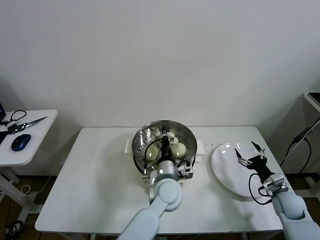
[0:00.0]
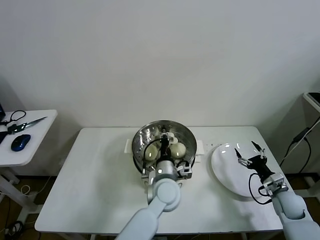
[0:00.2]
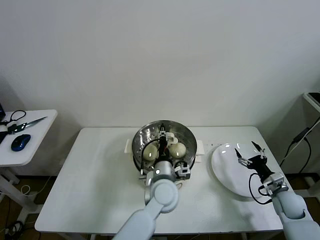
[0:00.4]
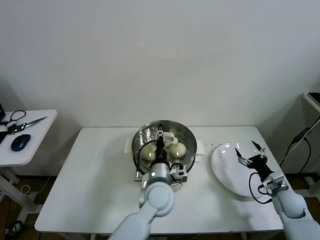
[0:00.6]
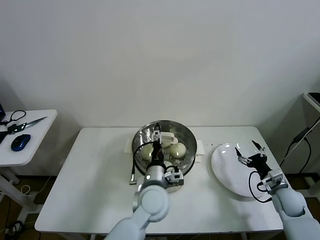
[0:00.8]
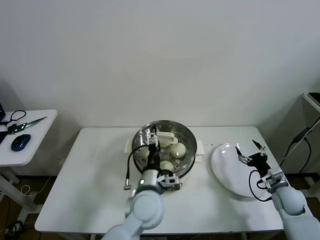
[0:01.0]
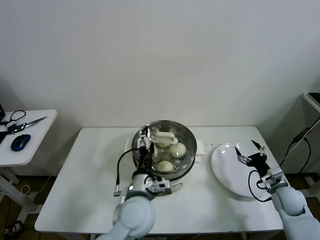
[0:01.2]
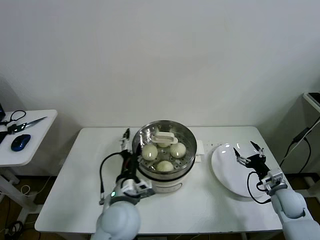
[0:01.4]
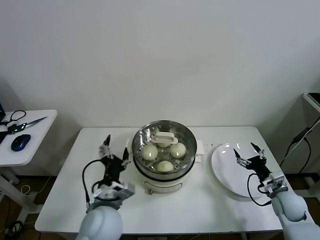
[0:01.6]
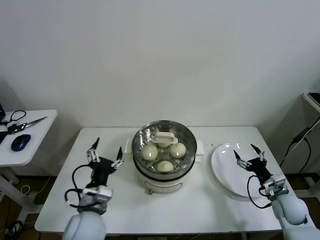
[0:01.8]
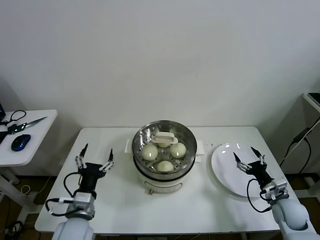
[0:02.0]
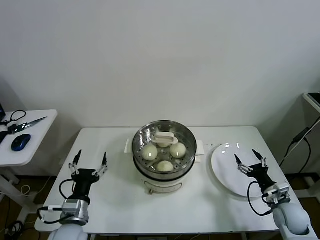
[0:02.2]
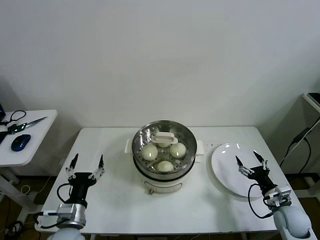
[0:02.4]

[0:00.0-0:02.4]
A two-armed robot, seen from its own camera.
Task of the whole recording: take steamed baozi put them in steamer then cover it.
0:00.0 to 0:01.2: The left gripper goes some 10 cm to the left and backward, and opens its fingers.
0:01.2 to 0:02.4: The right gripper shifts approximately 5 cm backward. Meanwhile the left gripper moves to the left, approximately 20 cm.

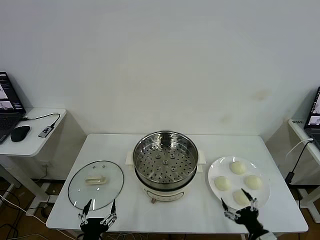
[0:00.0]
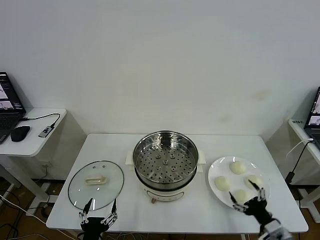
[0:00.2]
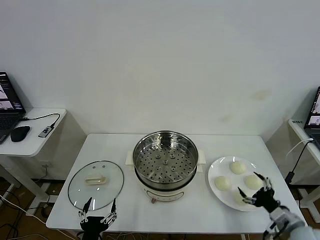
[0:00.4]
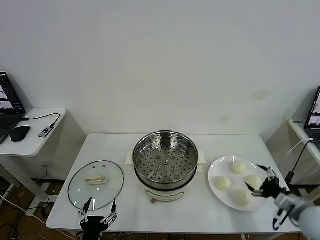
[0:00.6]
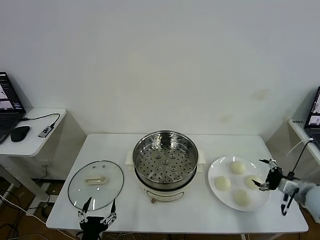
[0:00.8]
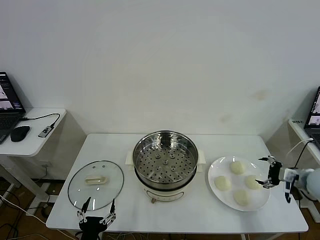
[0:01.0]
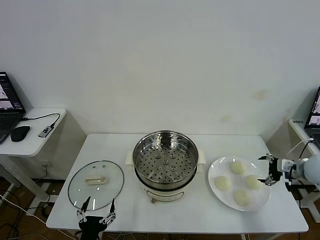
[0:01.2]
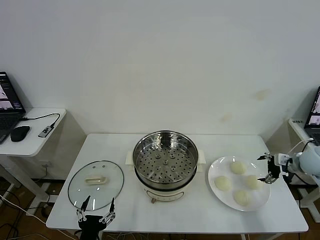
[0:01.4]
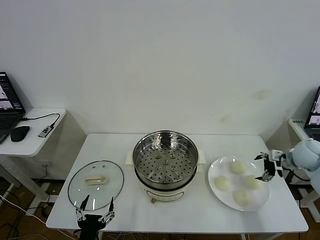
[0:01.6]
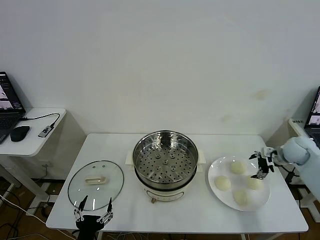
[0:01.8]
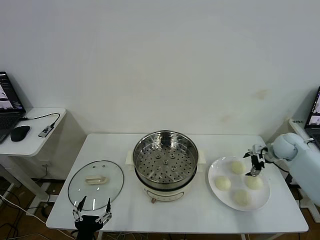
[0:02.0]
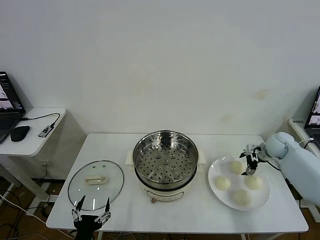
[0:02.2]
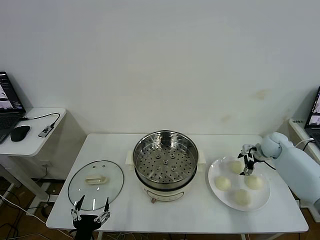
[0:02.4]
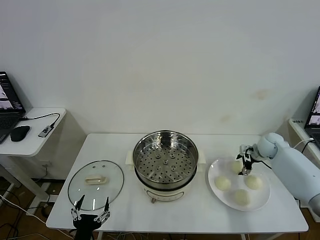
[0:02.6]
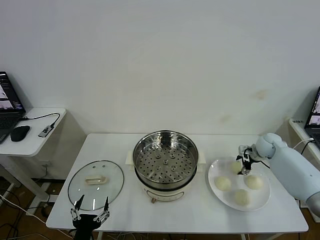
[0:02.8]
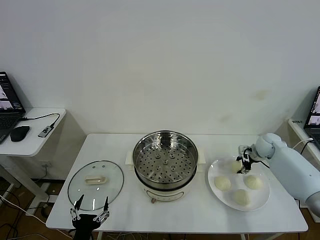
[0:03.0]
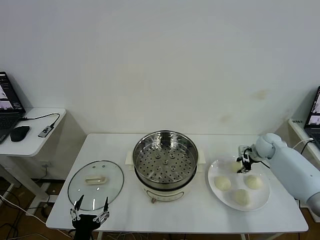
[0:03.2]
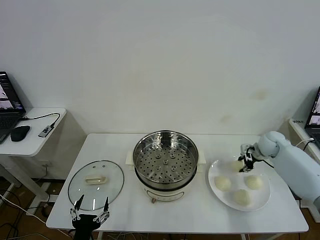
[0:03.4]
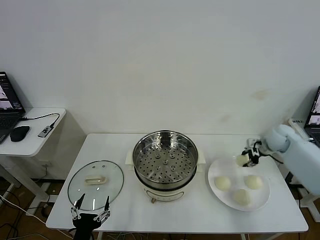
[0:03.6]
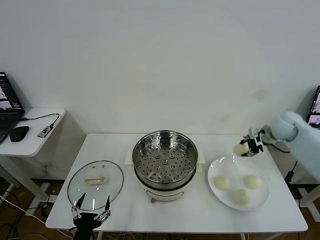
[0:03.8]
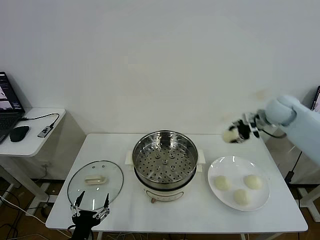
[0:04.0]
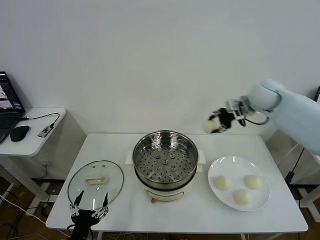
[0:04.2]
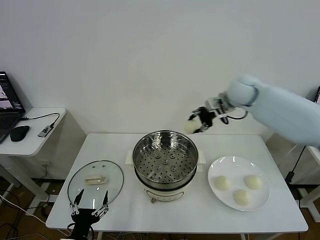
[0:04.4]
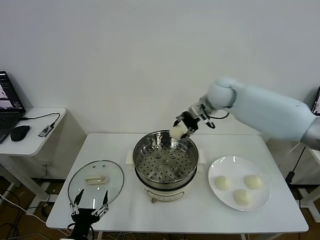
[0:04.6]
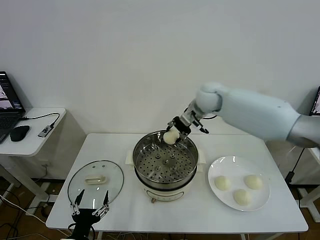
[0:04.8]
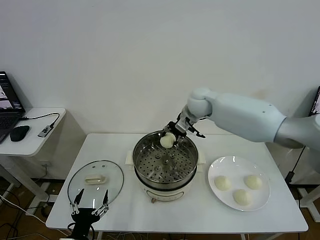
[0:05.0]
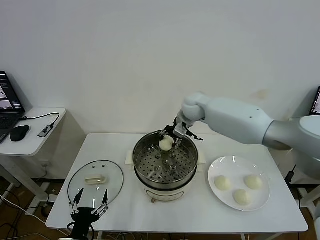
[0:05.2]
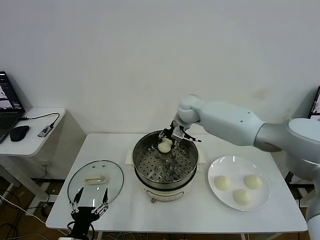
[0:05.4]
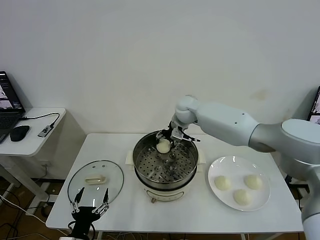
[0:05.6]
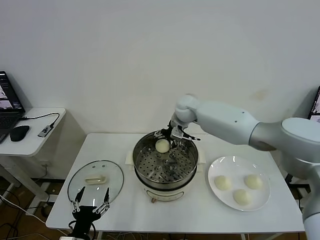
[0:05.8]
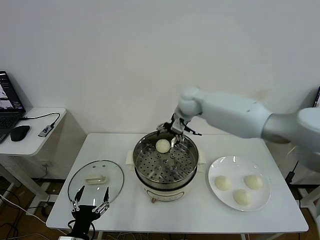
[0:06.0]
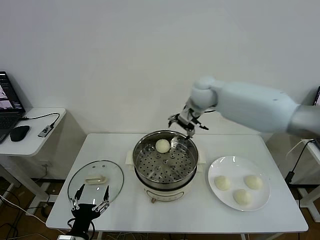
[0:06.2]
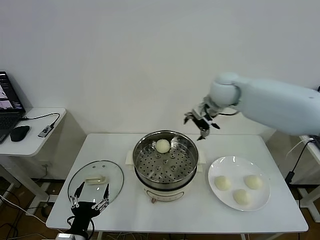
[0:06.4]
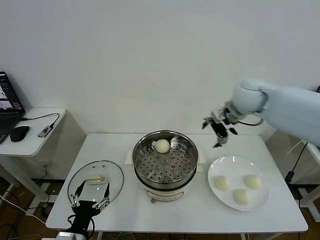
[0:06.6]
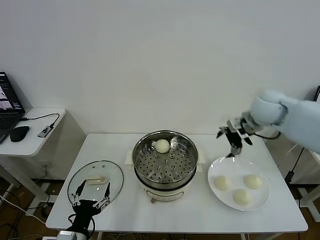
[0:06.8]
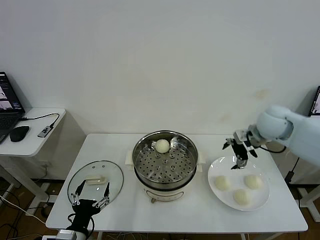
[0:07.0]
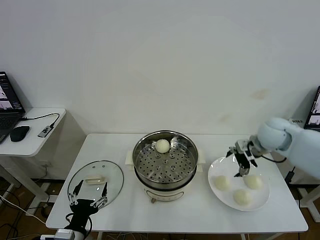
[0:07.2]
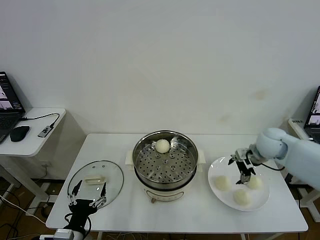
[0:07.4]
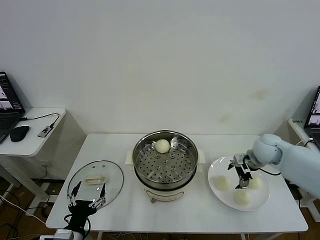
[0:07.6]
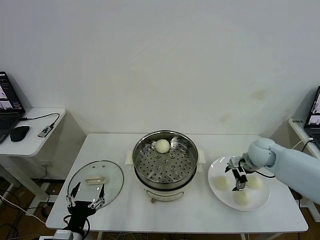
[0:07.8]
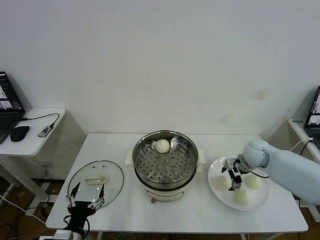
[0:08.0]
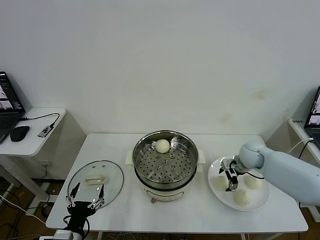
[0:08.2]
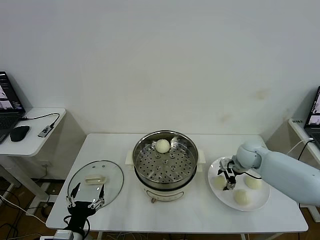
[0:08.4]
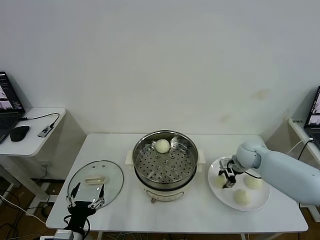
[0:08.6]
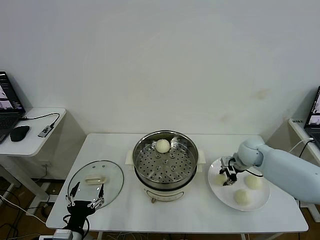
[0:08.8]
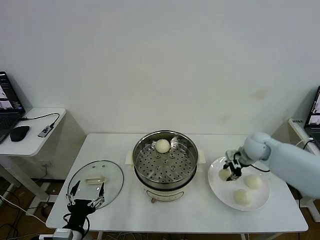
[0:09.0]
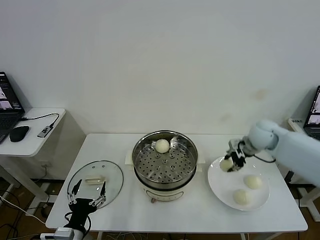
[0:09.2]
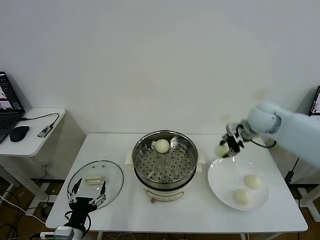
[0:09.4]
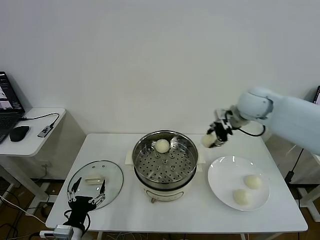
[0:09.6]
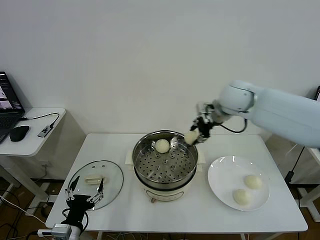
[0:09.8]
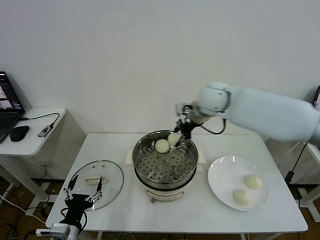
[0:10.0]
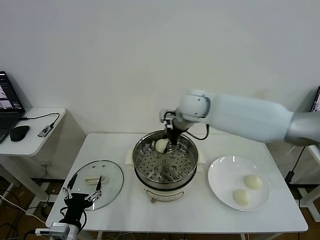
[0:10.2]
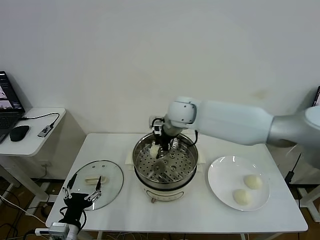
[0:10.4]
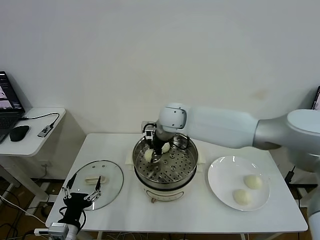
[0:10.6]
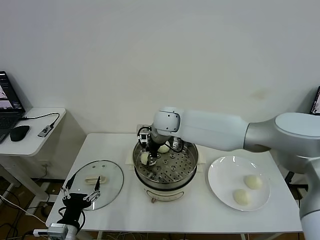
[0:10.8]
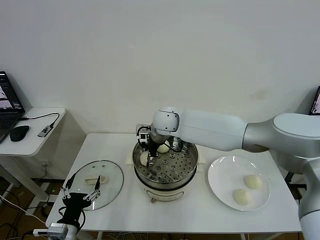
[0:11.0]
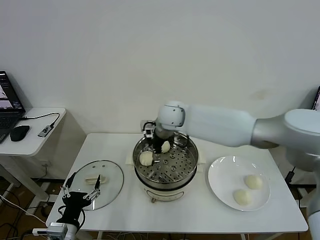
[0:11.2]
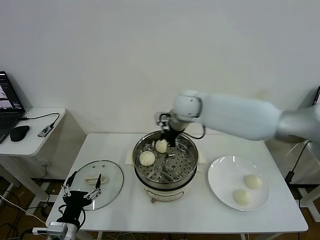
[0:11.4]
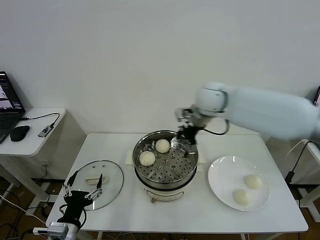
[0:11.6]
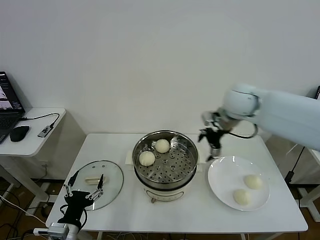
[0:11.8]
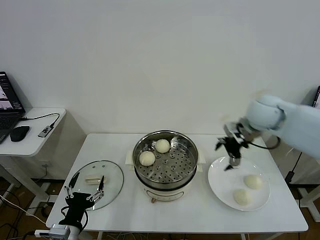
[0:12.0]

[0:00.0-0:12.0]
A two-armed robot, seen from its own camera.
Task of the whole recording: take steamed baozi put them in steamer then cover it.
Step, 0:00.0 to 0:02.8: Grasp the baozi in the plate with right gripper.
Step, 0:03.0 to 0:05.8: Place the baozi on the steamer with right gripper.
Step, 0:06.0 to 0:08.4: Grasp the baozi in the plate with right gripper.
Step, 0:08.6 to 0:11.0: Place the baozi on the steamer with right gripper.
0:01.6 to 0:03.0: The right gripper is displaced forward, downward and to the left by some 10 cm, and closes its fingers.
0:03.0 to 0:04.4: The right gripper shifts about 30 cm upward and to the left.
0:04.4 to 0:06.0: The right gripper heads to the left, covering roughly 10 cm, and opens up.
0:06.0 to 0:07.6: The right gripper goes some 30 cm to the right, downward and backward.
0:07.6 to 0:09.0: The right gripper closes its fingers.
0:09.0 to 0:10.4: The right gripper travels to the left by some 30 cm.
0:10.4 to 0:12.0: The right gripper is displaced to the right by about 25 cm, and opens.

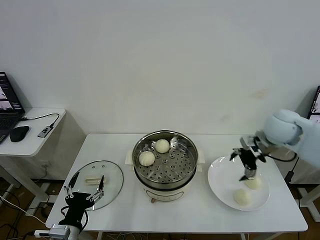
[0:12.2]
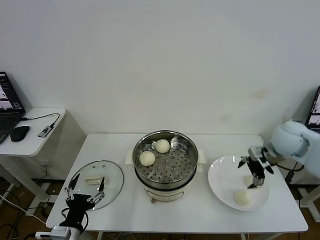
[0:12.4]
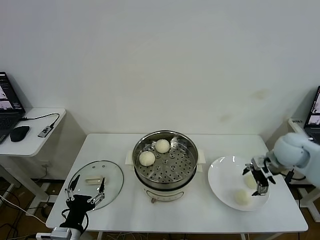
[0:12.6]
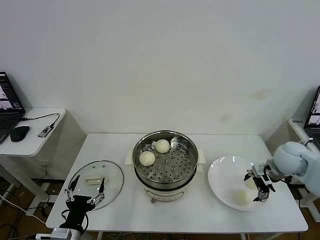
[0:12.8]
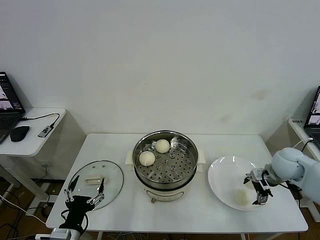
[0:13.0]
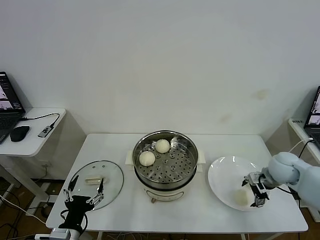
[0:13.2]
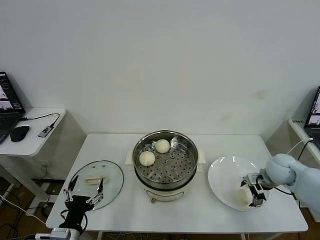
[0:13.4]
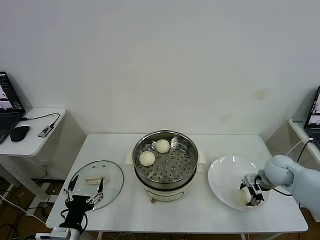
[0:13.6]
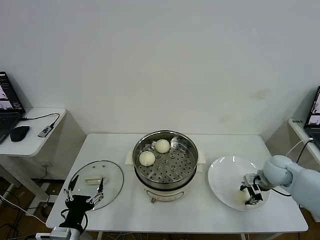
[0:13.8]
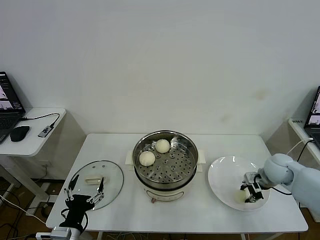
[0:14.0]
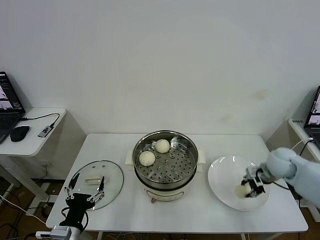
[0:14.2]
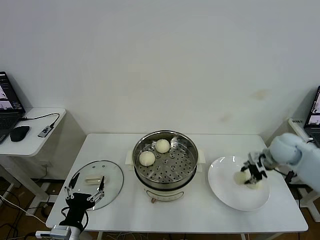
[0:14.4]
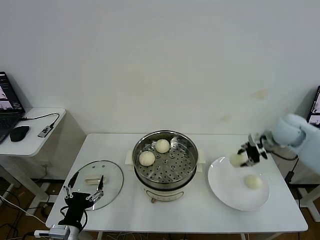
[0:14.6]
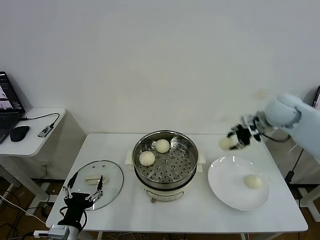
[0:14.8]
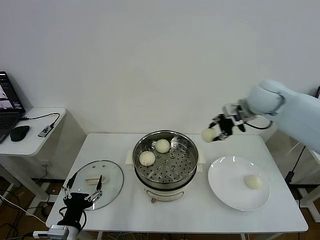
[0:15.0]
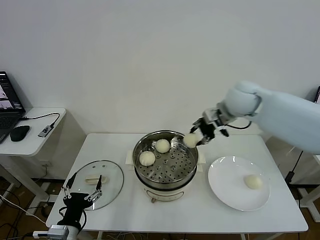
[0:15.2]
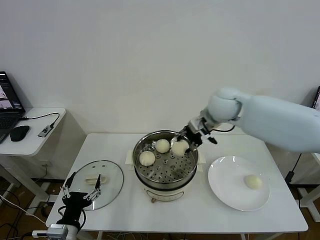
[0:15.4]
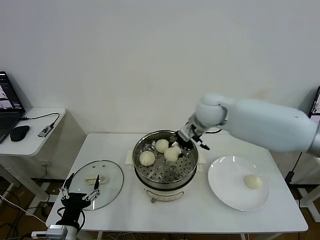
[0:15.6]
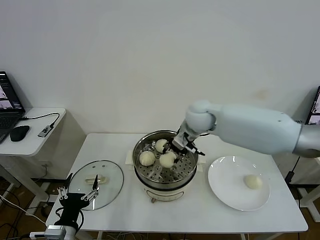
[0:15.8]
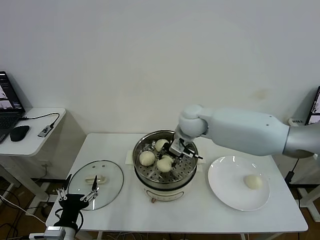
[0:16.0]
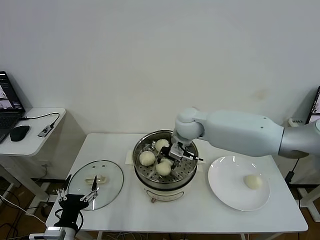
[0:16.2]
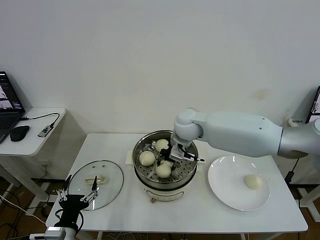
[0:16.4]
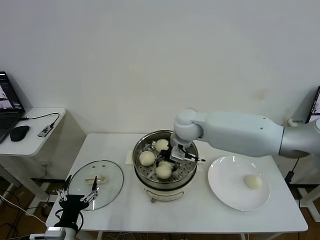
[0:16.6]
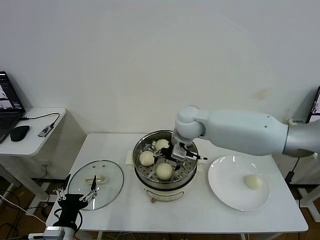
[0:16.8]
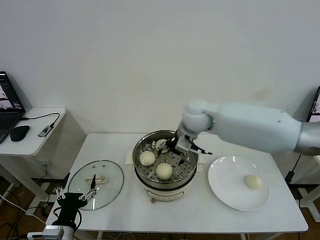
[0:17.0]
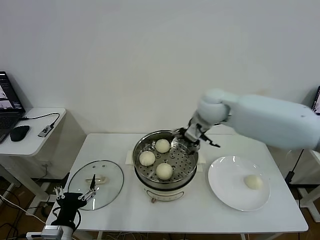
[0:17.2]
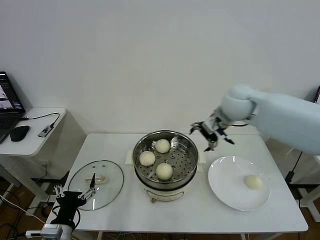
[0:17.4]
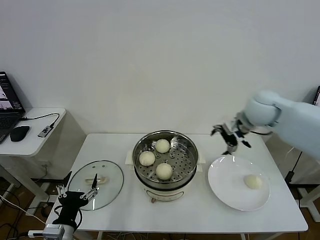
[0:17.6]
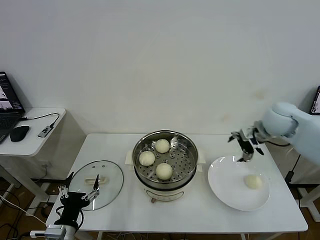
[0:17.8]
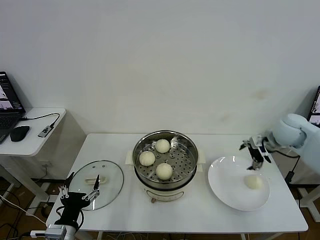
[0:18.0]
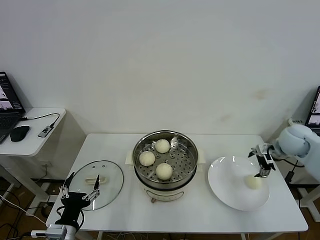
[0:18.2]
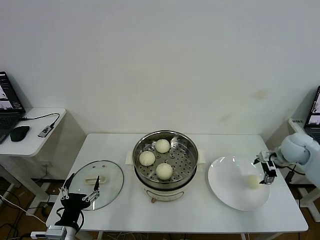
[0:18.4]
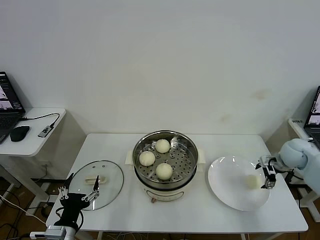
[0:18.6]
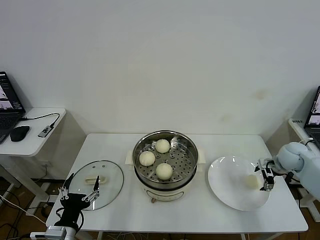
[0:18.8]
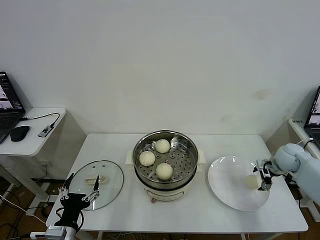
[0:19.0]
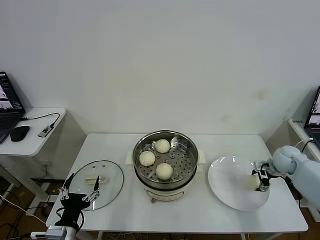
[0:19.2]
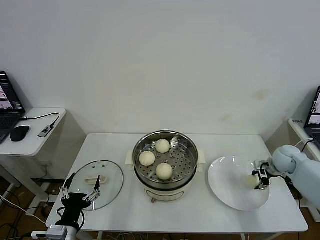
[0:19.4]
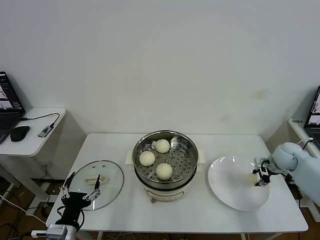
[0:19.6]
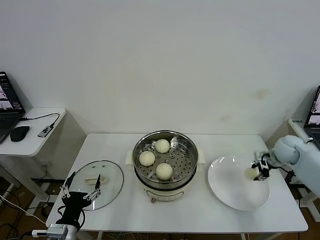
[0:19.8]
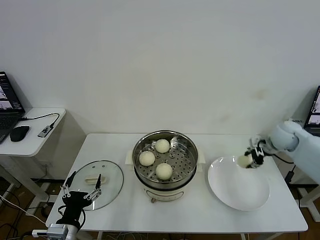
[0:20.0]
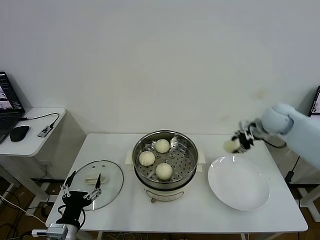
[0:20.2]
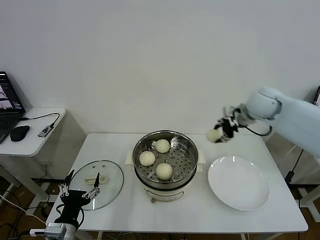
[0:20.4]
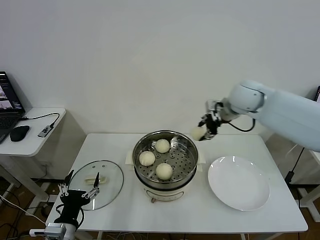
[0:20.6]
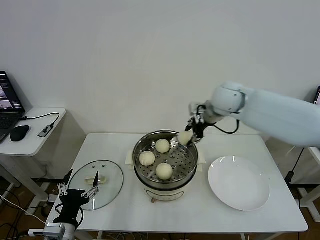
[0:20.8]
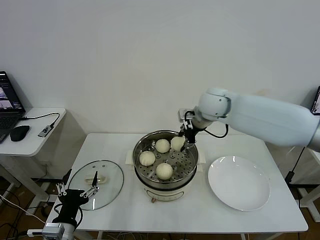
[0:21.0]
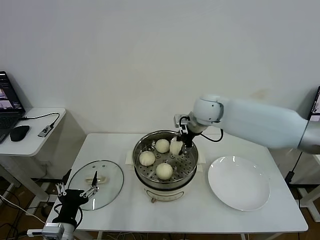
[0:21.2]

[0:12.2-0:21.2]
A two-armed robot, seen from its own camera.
Task of the whole recording: take steamed baozi put them in steamer then cover it.
Step, 0:12.2 to 0:13.8: Grasp the baozi in the plate with right gripper.
Step, 0:14.0 to 0:16.8: Place the baozi on the steamer with right gripper.
Step, 0:17.0 to 0:19.4: Grasp the baozi in the plate with right gripper.
0:12.2 to 0:13.8: The right gripper travels downward by roughly 15 cm, and closes.
0:13.8 to 0:15.2: The right gripper goes about 30 cm upward, to the left and forward.
0:15.2 to 0:16.6: The right gripper shifts roughly 15 cm to the left and downward, and opens up.
0:16.6 to 0:18.2: The right gripper heads to the right, covering about 35 cm, and opens up.
0:18.2 to 0:19.8: The right gripper moves downward, roughly 5 cm, and closes.
0:19.8 to 0:21.2: The right gripper is displaced to the left and upward by about 35 cm.
